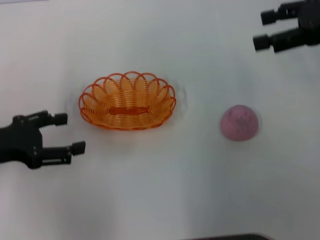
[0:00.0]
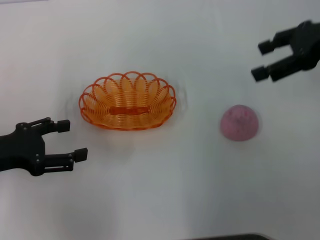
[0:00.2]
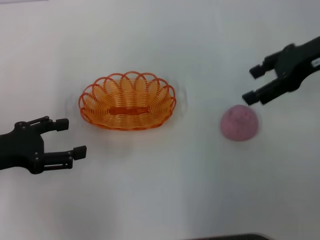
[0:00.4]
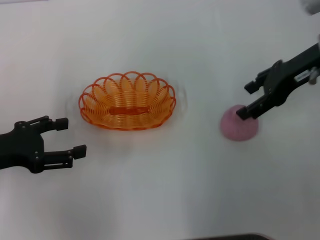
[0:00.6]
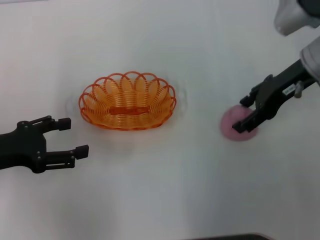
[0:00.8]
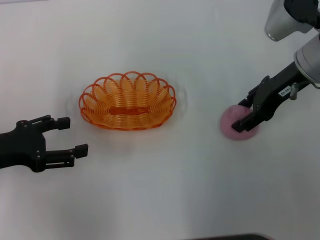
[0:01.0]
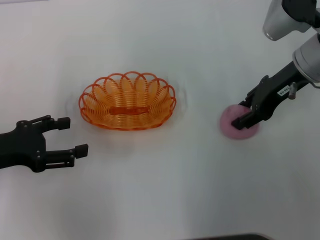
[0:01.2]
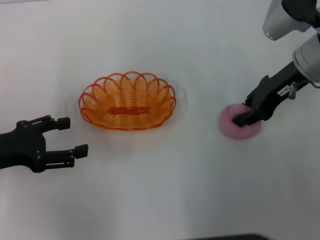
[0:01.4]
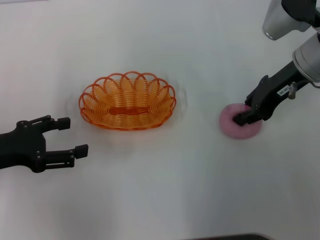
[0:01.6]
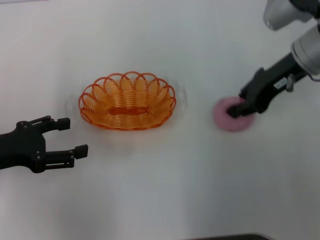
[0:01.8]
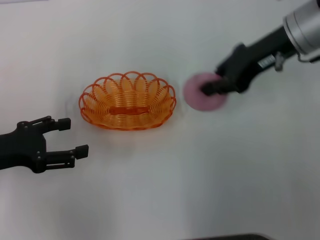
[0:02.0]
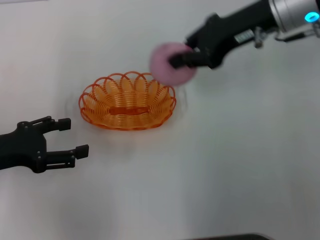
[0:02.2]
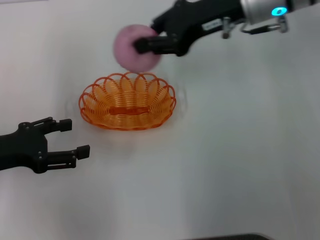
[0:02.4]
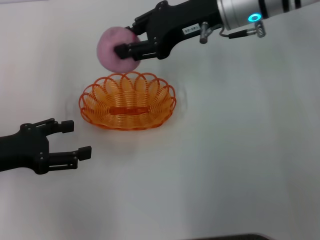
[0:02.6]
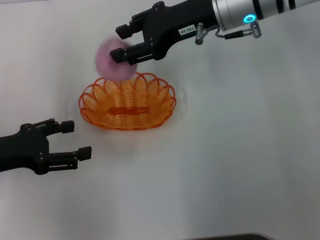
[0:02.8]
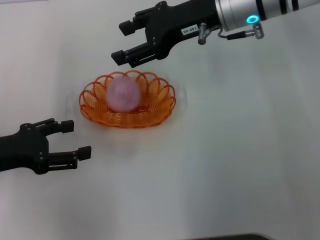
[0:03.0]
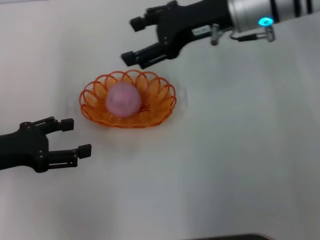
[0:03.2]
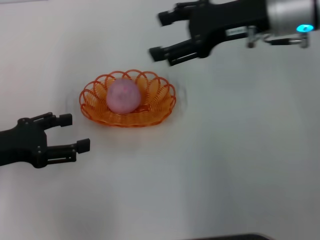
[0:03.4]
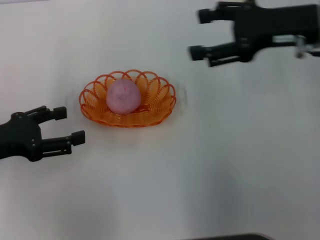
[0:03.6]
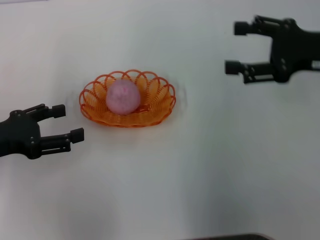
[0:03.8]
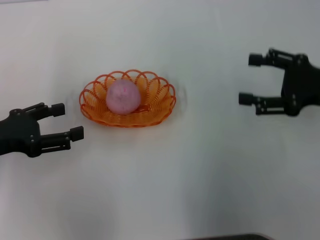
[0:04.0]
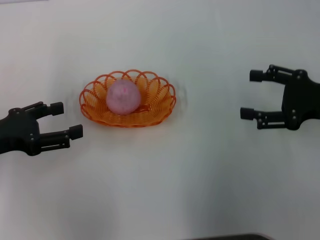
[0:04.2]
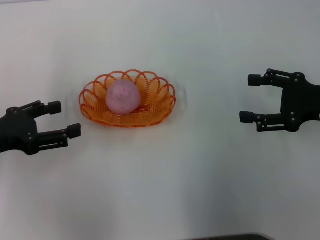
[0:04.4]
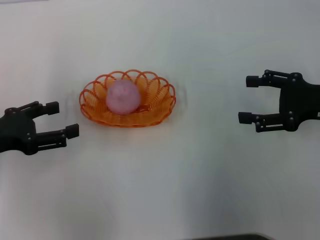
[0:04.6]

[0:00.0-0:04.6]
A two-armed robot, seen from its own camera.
Step, 0:00.0 to 0:01.8: Pick up the peach with the right gripper.
Step, 0:02.0 to 0:03.0: Place the peach into the basket with the right gripper.
0:00.0 to 0:01.6: The right gripper is displaced downward and to the left by approximately 10 cm, and closes its fingers.
0:01.6 to 0:03.0: The right gripper is displaced to the left and upward by approximately 10 cm.
0:03.0 to 0:04.6: The right gripper goes approximately 25 cm to the right, backward and downward, and opens up.
